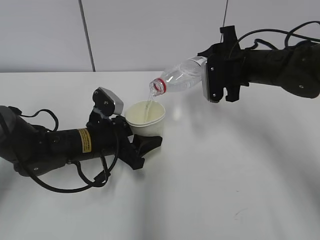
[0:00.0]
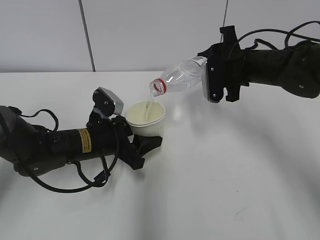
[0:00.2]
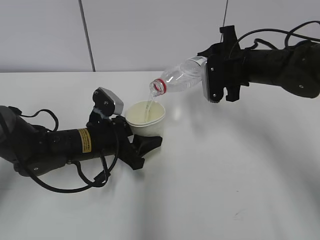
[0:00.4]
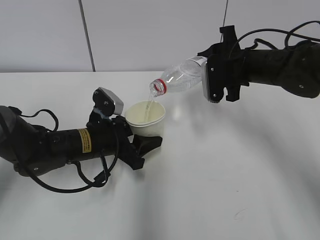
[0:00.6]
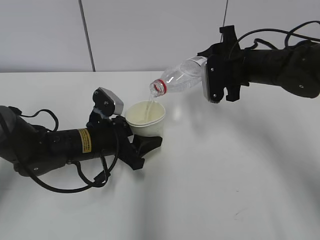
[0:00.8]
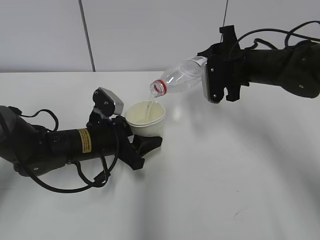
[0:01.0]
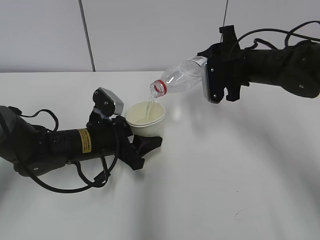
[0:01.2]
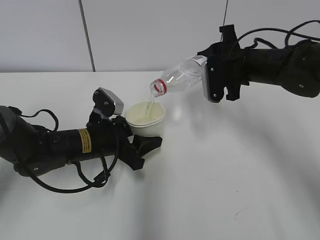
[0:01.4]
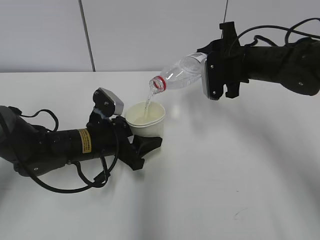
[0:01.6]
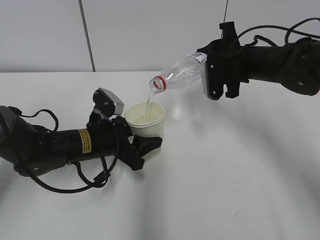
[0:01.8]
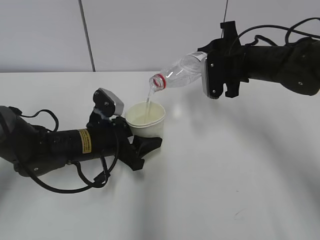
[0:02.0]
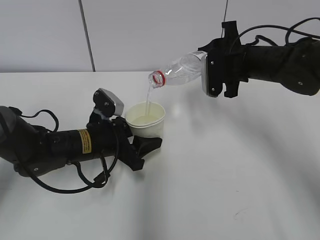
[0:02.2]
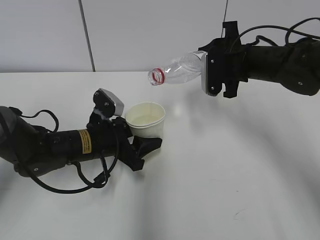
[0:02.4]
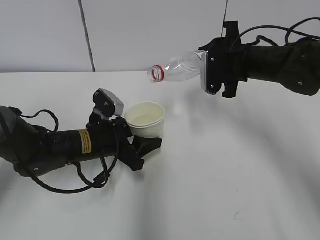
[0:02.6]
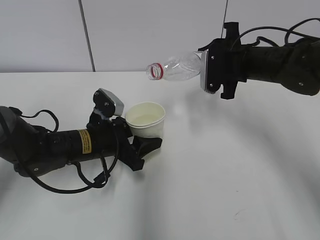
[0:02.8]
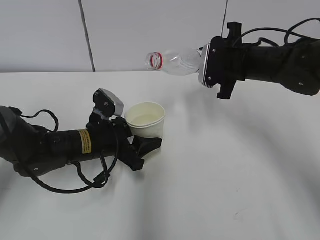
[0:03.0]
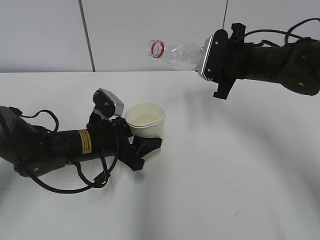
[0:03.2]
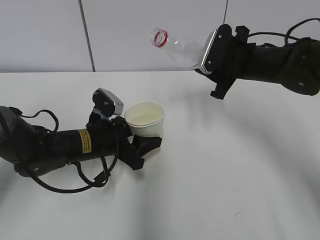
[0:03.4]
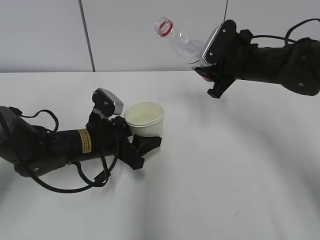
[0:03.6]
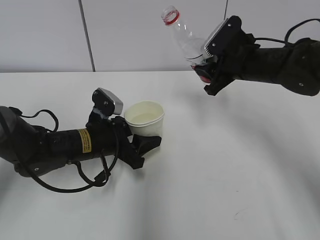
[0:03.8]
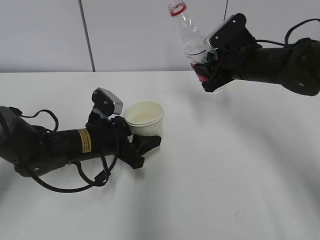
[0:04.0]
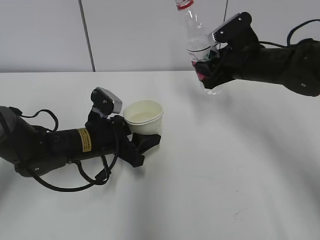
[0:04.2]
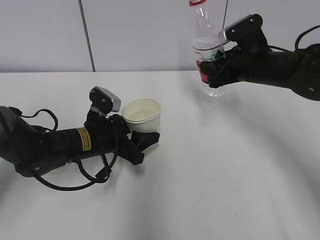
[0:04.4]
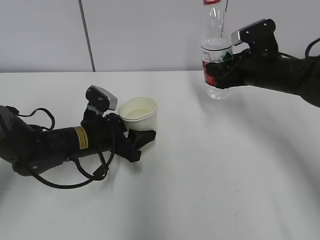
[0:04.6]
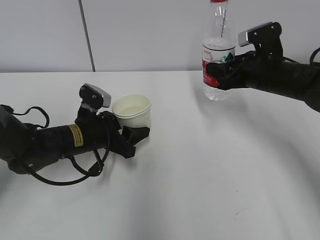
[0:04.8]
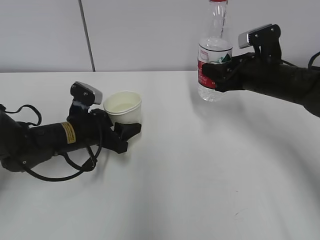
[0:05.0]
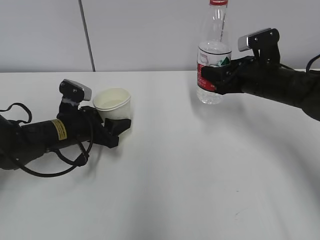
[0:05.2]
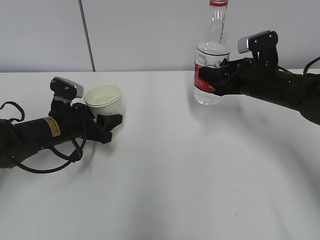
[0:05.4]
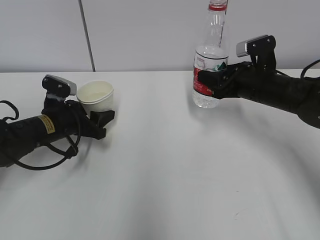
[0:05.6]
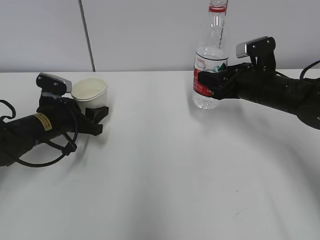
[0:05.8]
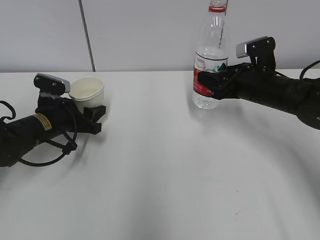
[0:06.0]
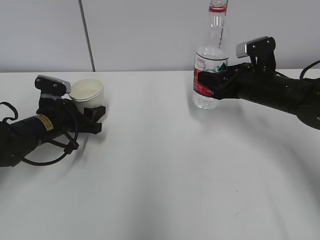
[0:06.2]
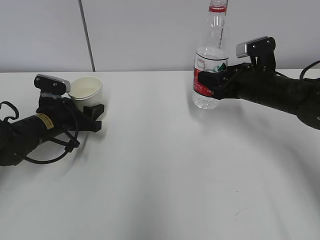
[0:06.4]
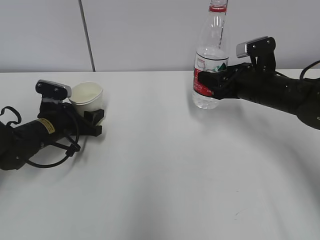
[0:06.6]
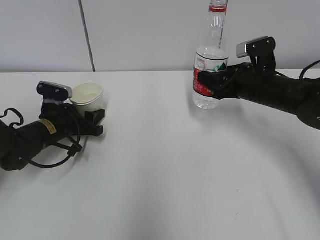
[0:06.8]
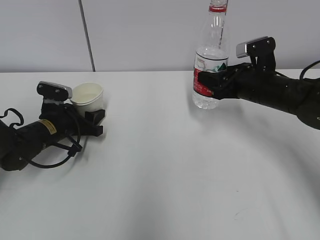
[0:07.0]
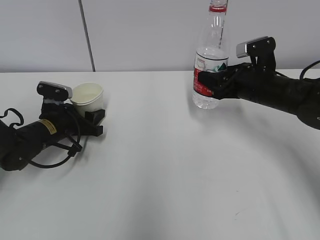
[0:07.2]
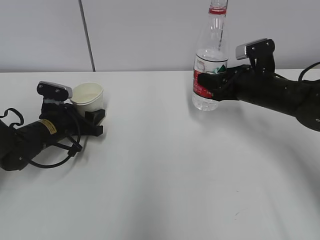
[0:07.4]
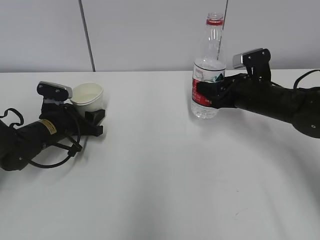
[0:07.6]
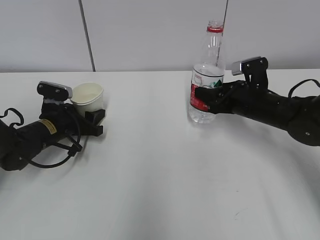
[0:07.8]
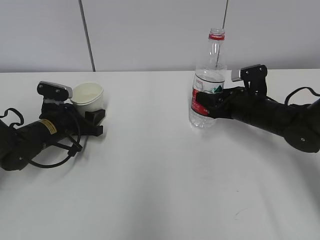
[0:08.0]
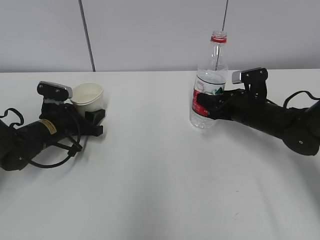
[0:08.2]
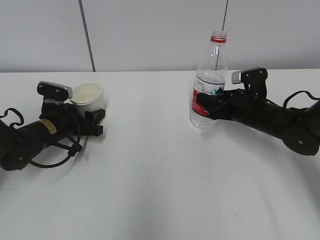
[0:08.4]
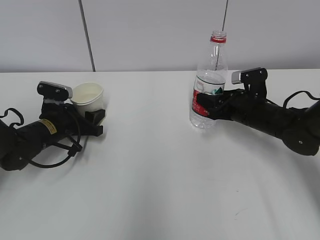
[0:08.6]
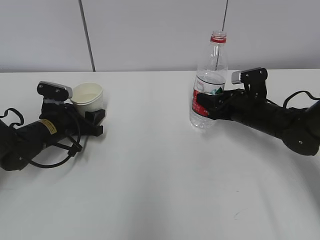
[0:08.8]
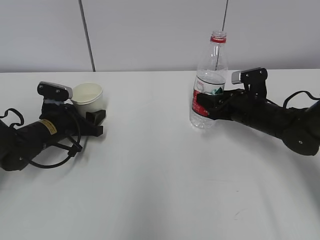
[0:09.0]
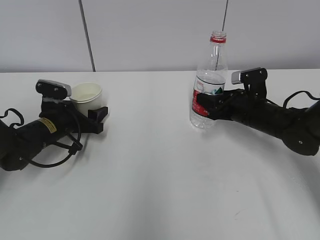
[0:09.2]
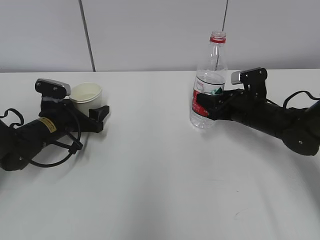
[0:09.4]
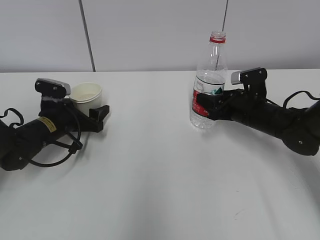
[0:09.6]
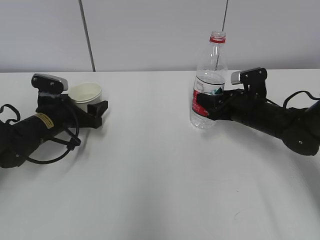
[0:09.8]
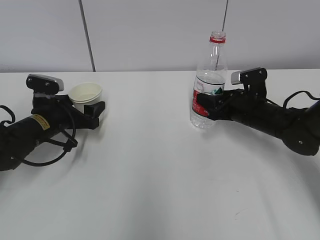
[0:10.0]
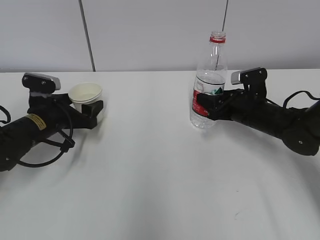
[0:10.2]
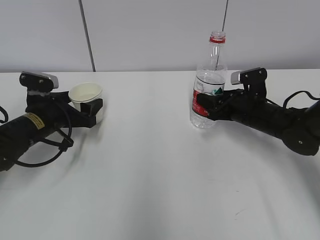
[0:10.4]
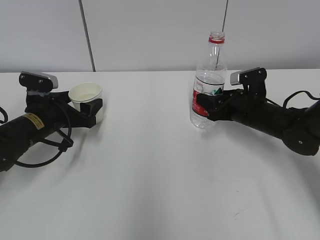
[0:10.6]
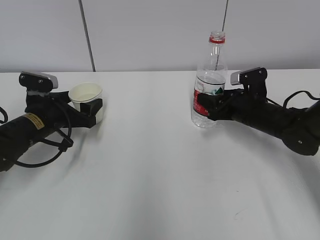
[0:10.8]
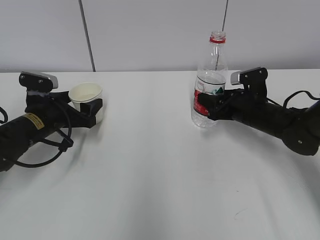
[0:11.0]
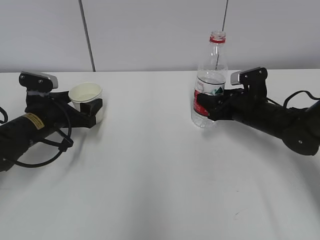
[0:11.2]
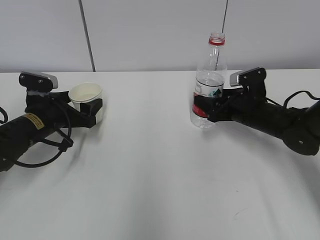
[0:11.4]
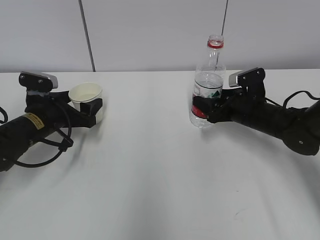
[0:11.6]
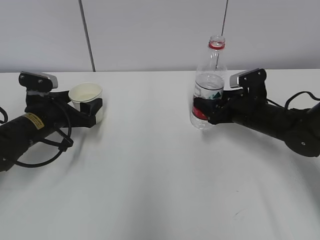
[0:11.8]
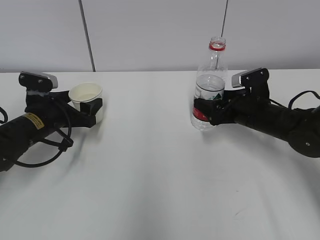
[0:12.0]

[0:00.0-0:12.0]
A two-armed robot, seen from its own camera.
Step, 0:00.0 to 0:03.4: Place the paper cup with the left hand.
Step, 0:03.6 to 0:06.8: Place the water bottle with the right hand.
0:00.0 to 0:01.6: Neither gripper changes place.
0:04.4 to 0:06.0: The left gripper moves to the left, about 10 cm.
0:06.0 to 0:07.6: The grippers make only small movements.
0:07.6 to 0:09.0: The grippers stay close to where they were, moving slightly.
0:09.0 to 0:10.4: The left gripper opens.
0:10.4 to 0:12.0: The right gripper opens its fingers.

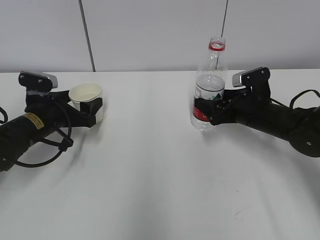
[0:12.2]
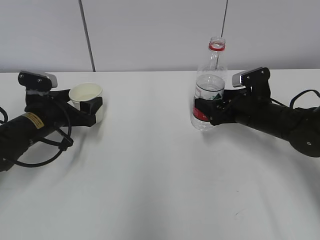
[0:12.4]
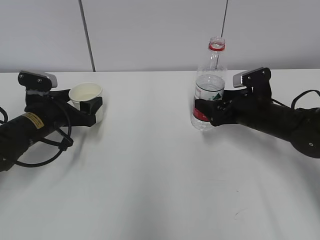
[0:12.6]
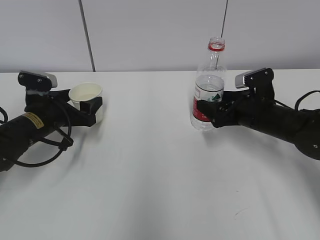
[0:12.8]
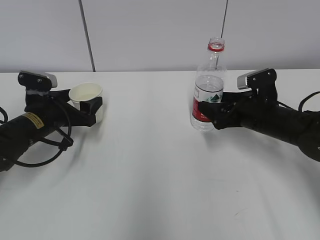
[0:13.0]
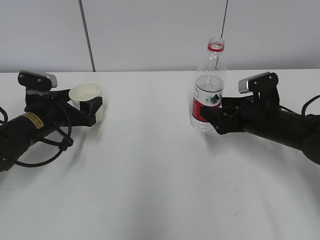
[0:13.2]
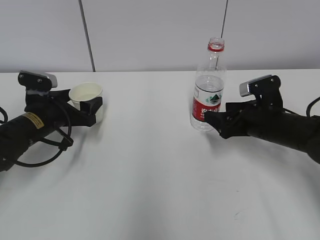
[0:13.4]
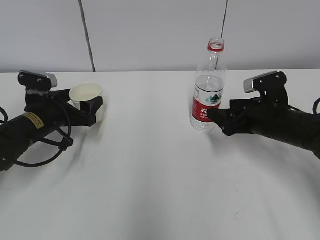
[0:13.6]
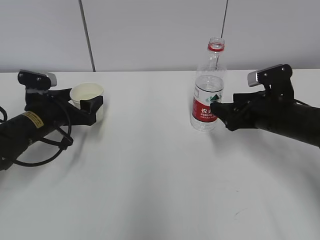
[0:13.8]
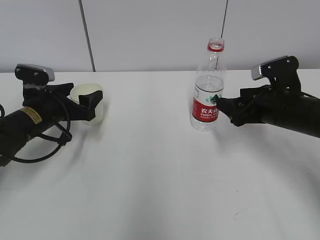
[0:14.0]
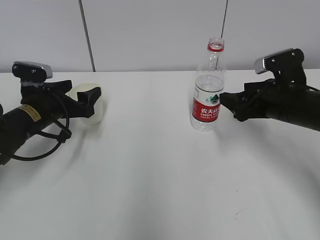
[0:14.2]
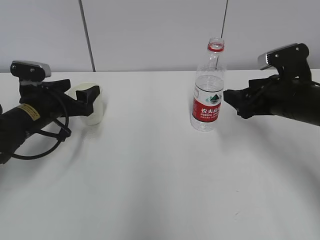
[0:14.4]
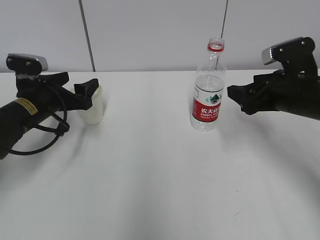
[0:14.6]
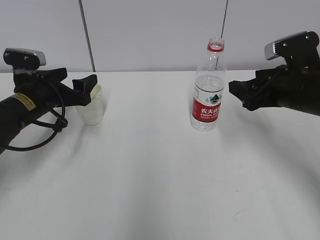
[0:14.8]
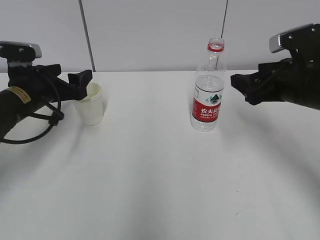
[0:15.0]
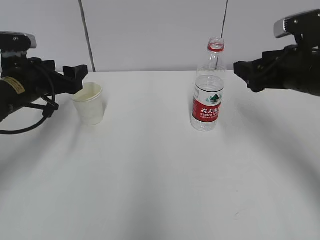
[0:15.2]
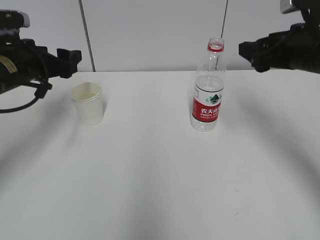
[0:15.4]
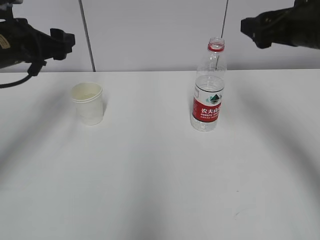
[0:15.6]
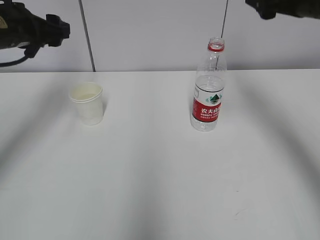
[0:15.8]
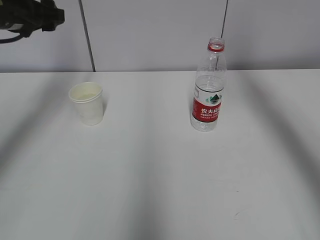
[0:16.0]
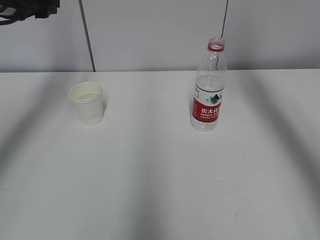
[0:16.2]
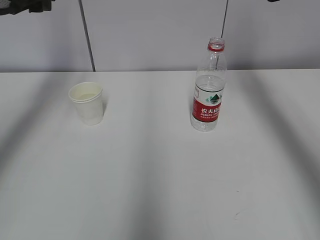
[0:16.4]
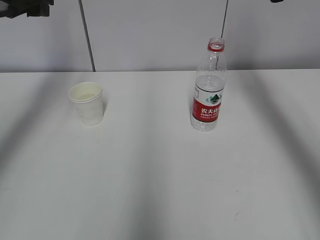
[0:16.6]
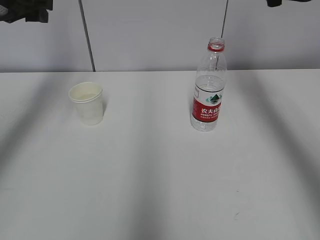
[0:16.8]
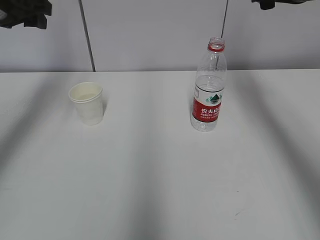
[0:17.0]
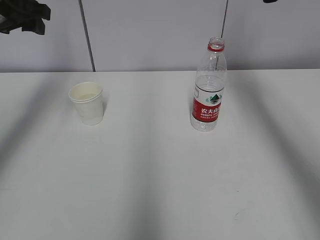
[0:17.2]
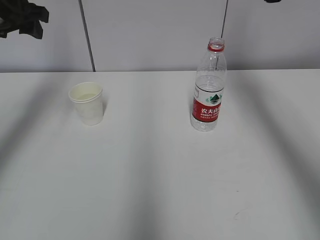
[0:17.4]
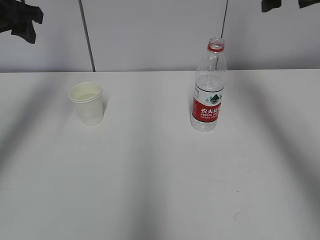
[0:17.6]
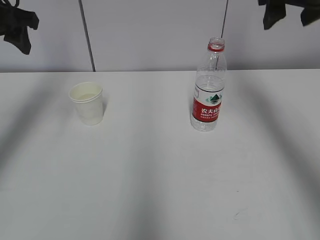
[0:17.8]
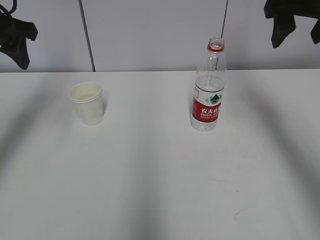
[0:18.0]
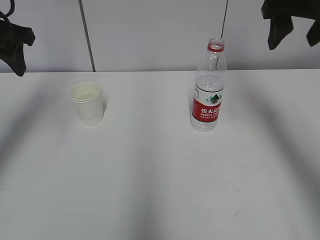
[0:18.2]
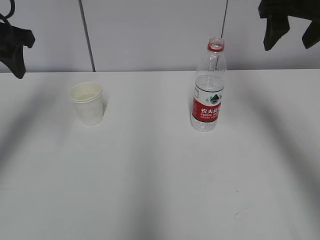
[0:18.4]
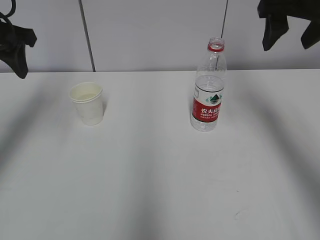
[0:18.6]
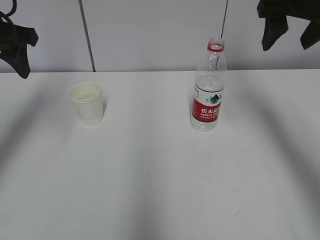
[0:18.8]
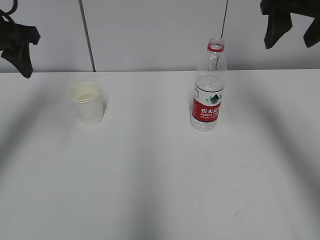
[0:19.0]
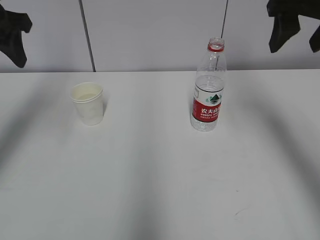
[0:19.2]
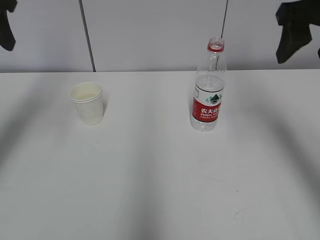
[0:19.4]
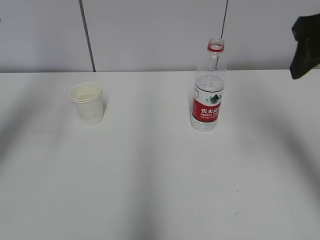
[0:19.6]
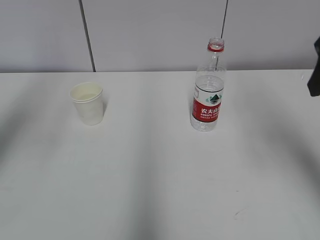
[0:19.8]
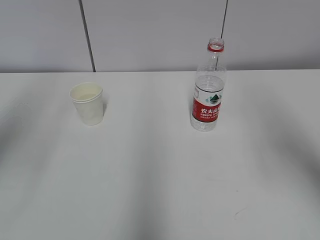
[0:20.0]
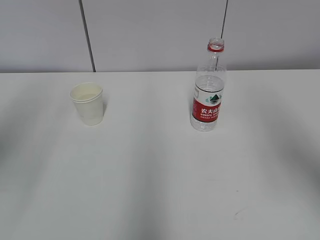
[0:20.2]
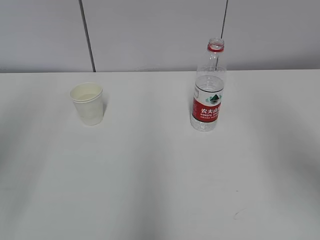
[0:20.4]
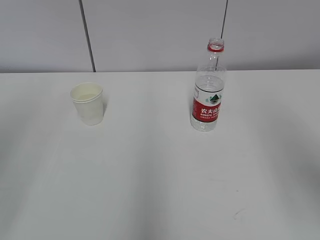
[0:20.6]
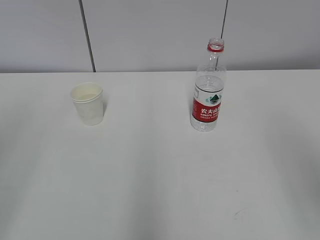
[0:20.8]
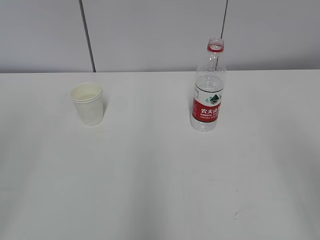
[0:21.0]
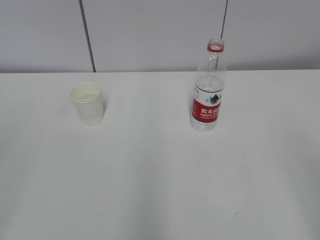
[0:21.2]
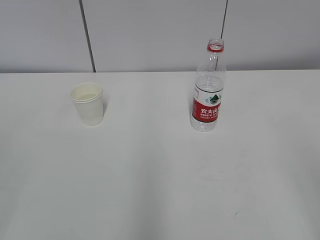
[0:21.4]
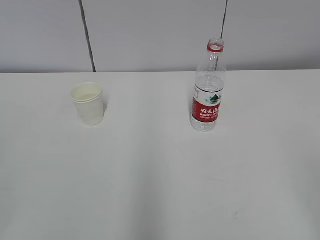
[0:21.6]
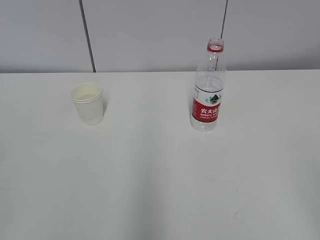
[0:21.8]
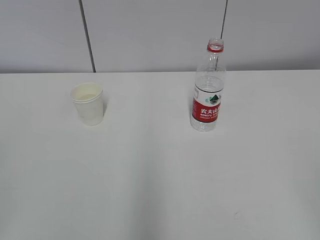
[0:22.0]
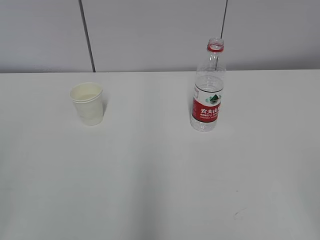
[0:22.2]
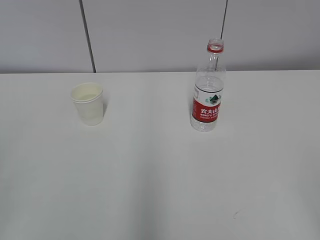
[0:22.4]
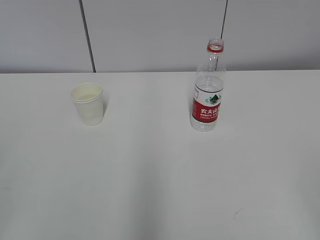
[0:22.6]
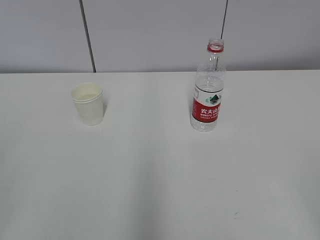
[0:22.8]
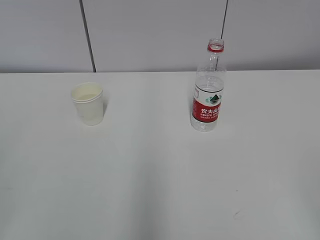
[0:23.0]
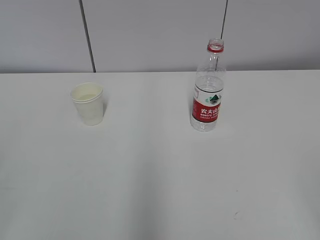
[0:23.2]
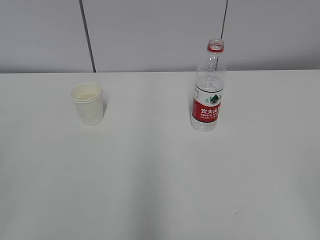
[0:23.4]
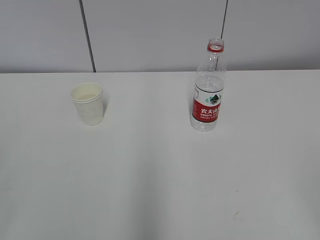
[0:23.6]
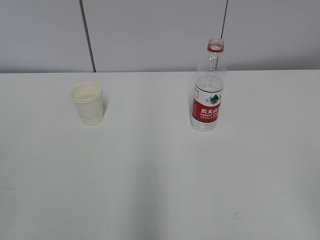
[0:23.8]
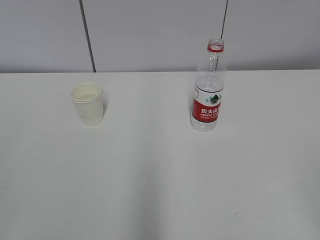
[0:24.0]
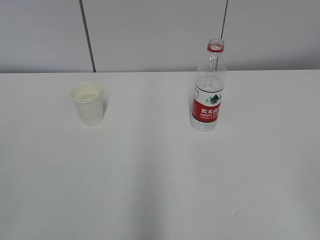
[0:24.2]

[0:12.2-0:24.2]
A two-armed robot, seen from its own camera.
0:12.2 to 0:13.8: The right gripper ends up approximately 5 cm from where it was.
0:13.8 to 0:15.2: The two grippers go some 10 cm upward.
0:15.2 to 0:16.6: The left gripper heads upward, covering roughly 15 cm; the right gripper moves upward and forward, some 15 cm.
0:16.6 to 0:18.2: The right gripper heads backward, covering approximately 5 cm.
0:18.2 to 0:19.8: The right gripper travels backward by approximately 10 cm; the left gripper goes about 15 cm backward and upward.
0:19.8 to 0:21.2: Both grippers move backward, about 20 cm.
0:22.6 to 0:24.2: Both grippers stay put.
